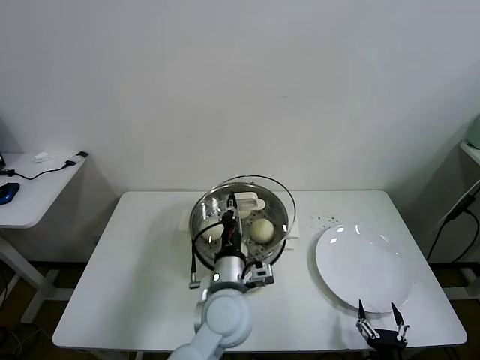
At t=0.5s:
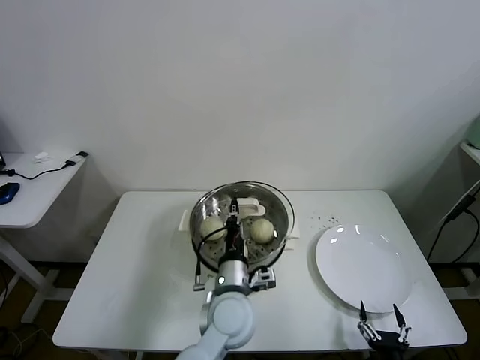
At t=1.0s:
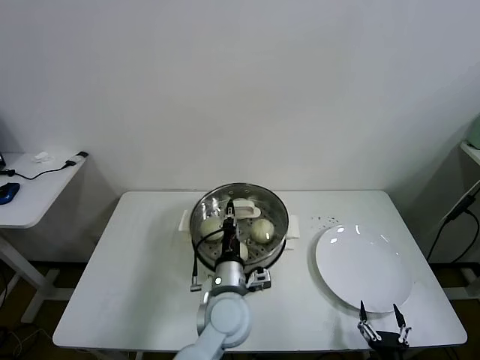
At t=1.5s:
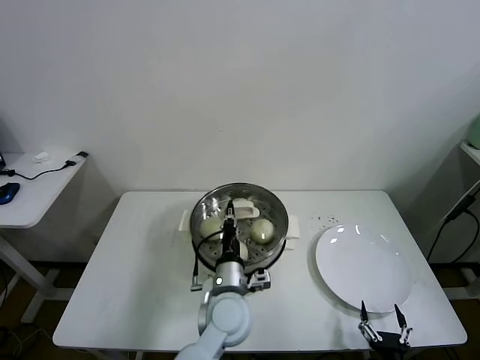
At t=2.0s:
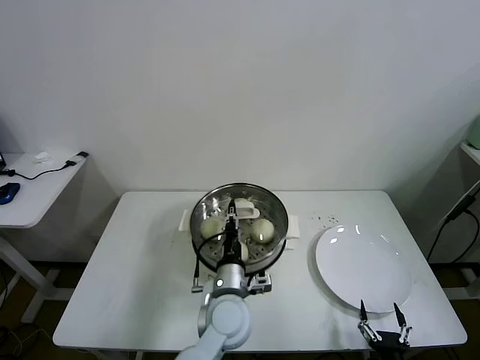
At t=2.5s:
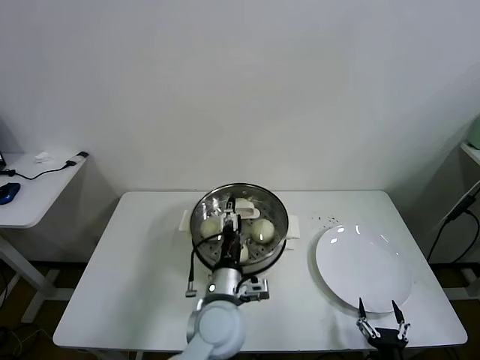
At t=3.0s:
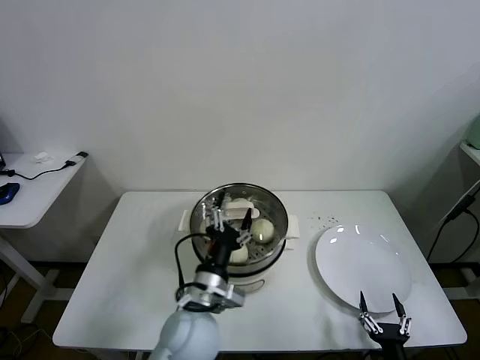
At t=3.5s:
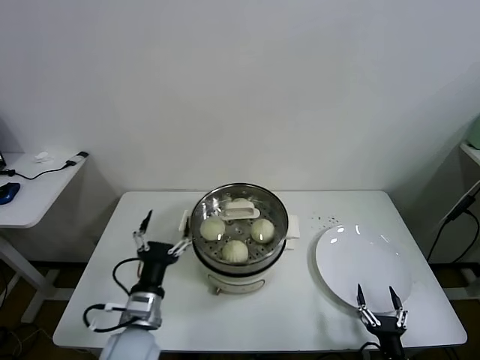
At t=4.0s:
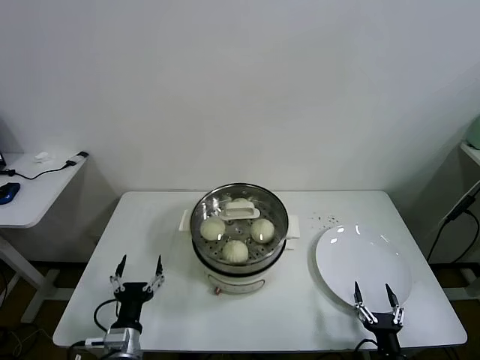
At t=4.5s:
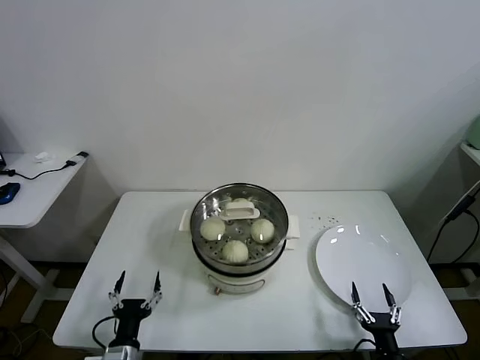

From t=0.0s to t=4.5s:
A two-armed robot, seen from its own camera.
Task of the whole recording: take steamed baozi put them in steamer.
Step, from t=0.0s to t=2.0s: Place the pot lid on the steamer with left gripper.
From t=0.0s to t=2.0s: The left gripper shifts by approximately 5 cm.
From t=2.0s to t=4.5s: The left gripper goes some 30 cm to the left, backward and downward, and opens.

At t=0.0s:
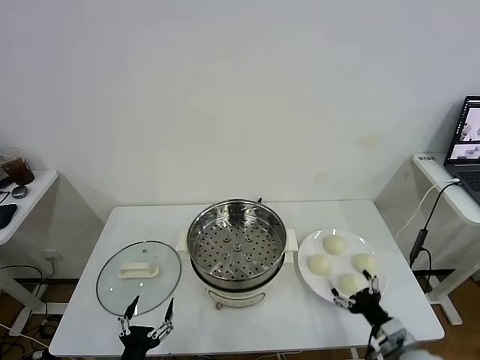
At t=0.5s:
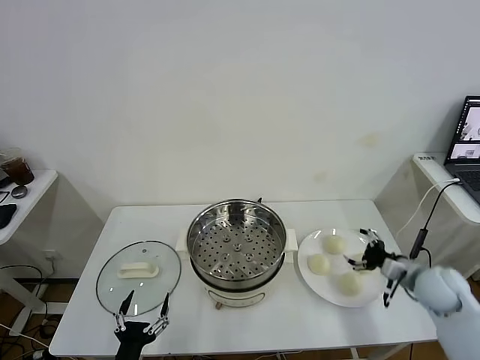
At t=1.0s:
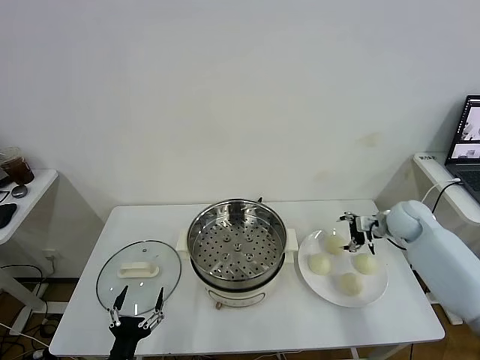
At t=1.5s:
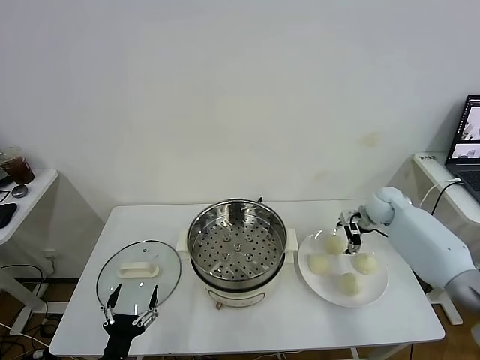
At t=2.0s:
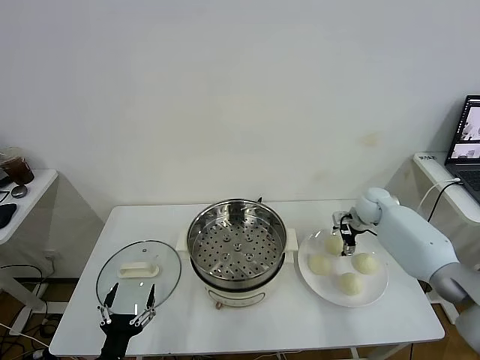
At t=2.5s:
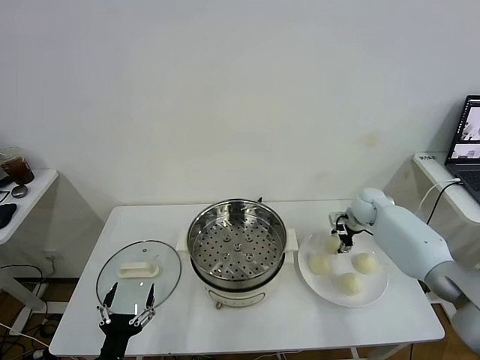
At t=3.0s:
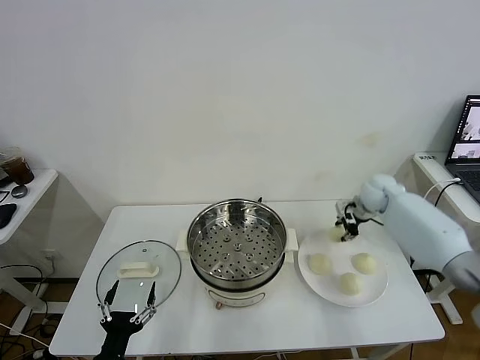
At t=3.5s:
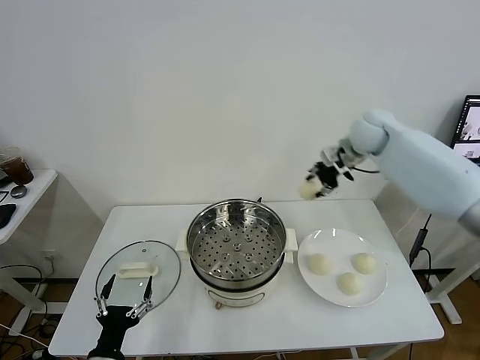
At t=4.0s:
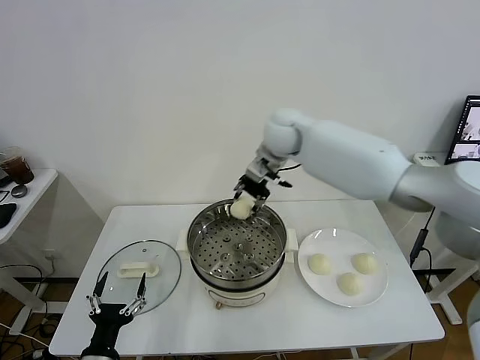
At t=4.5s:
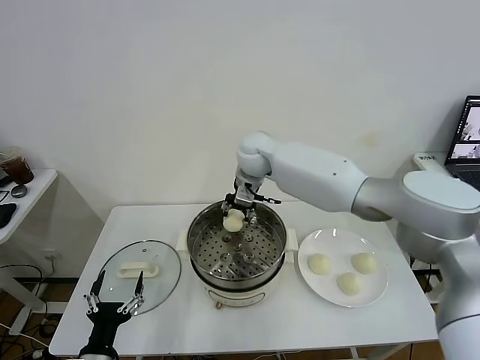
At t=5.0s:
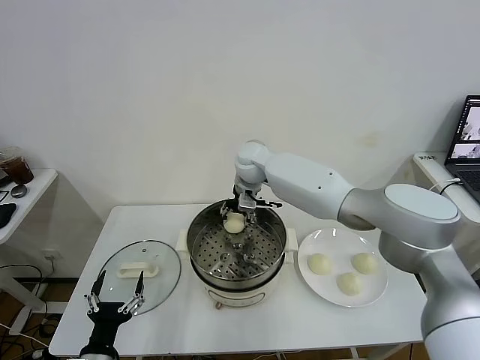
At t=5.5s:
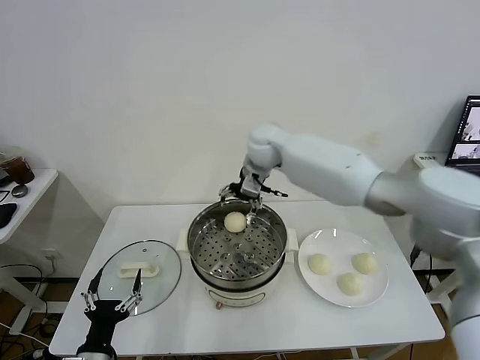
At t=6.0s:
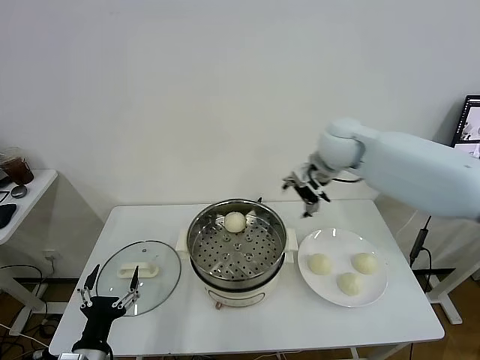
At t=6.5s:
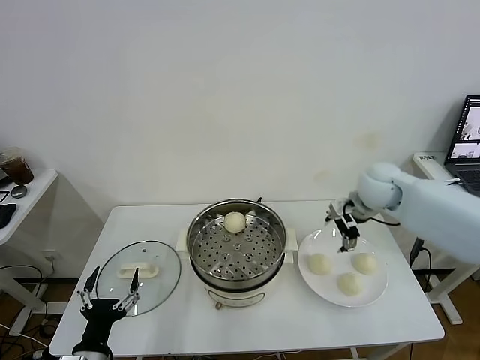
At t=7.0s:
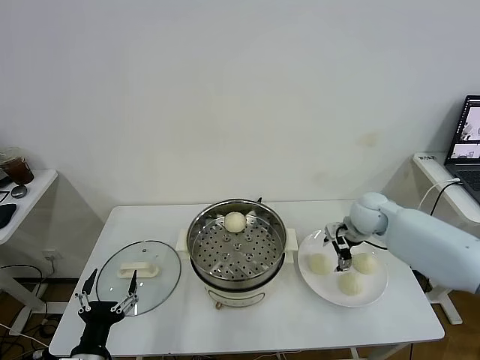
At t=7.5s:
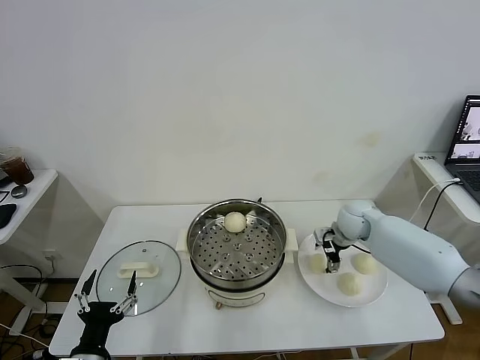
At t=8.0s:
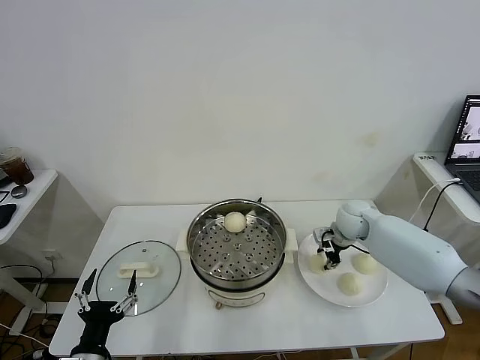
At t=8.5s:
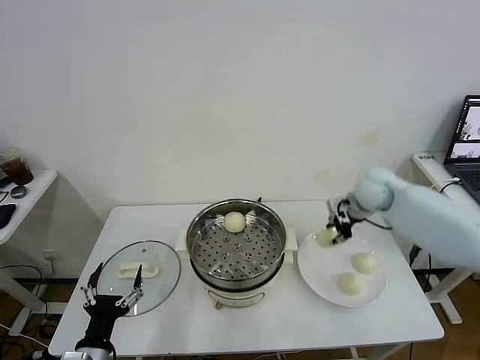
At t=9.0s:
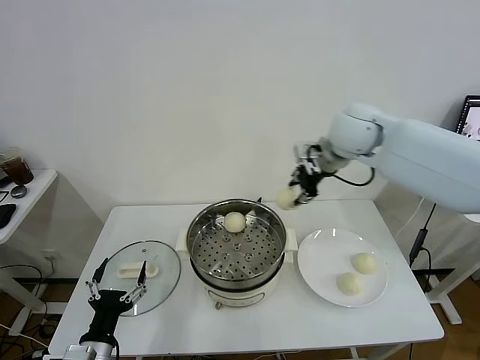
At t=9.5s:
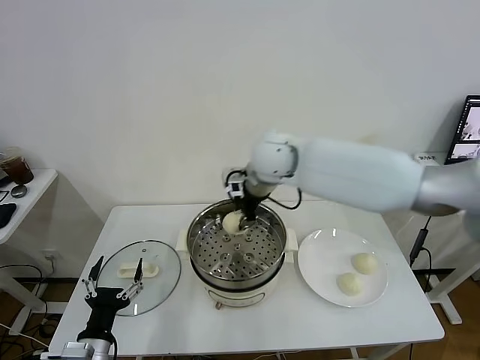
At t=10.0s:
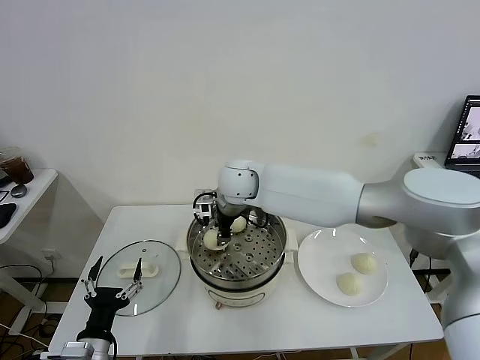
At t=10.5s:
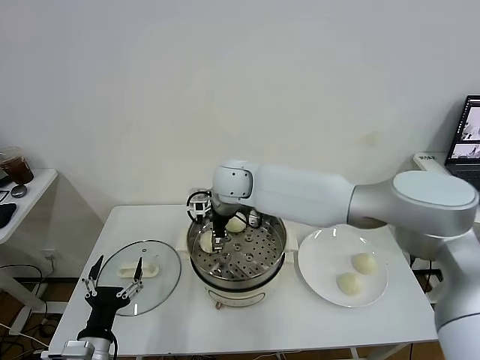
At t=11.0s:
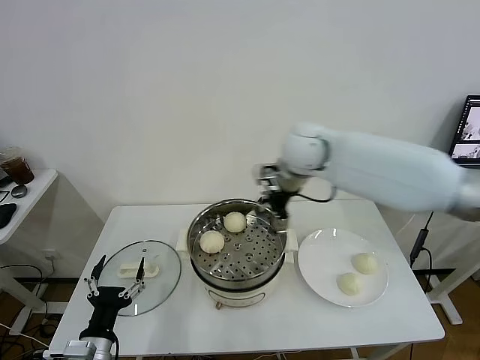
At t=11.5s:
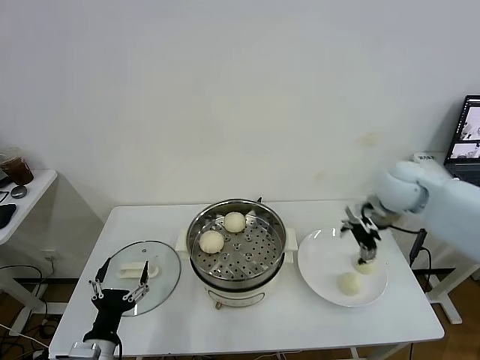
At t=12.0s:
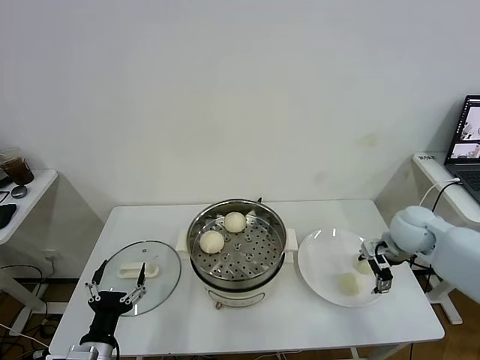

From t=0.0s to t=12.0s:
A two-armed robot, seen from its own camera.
Task of the whole recording: take steamed baozi put them in steamer.
Step, from t=0.0s to t=2.5s: Grasp the baozi in the plate with right gripper.
Step, from t=3.0s to t=5.0s: Place the baozi on the steamer with right gripper.
Step, from t=5.5s to t=8.0s: Grasp the baozi in the plate with right gripper.
Step, from t=8.5s to t=10.5s: Place the baozi on the steamer with right gripper.
From t=2.0s to t=4.0s: The right gripper travels to the left and upward by roughly 35 cm, and closes its fingers.
From t=4.0s to t=6.0s: The right gripper shifts roughly 15 cm to the right, and opens up.
From t=6.0s to t=8.0s: The right gripper is displaced downward by roughly 20 cm, and closes up.
From t=8.0s to t=10.0s: The right gripper is displaced to the left and upward by about 35 cm.
From t=10.0s to t=12.0s: The right gripper moves to the right, approximately 40 cm, and opens.

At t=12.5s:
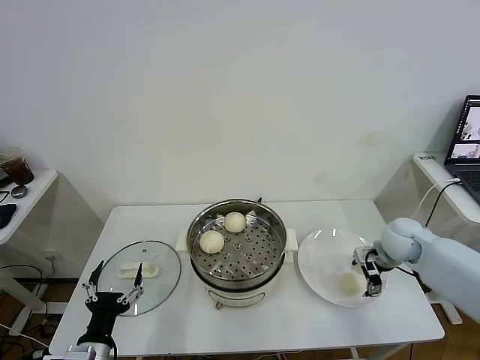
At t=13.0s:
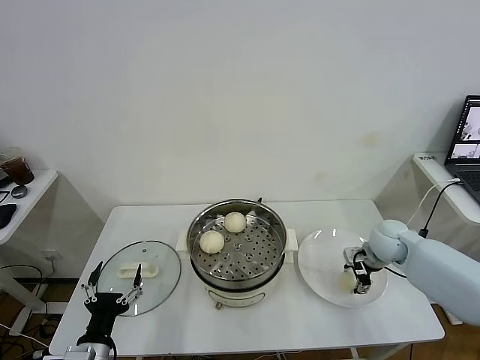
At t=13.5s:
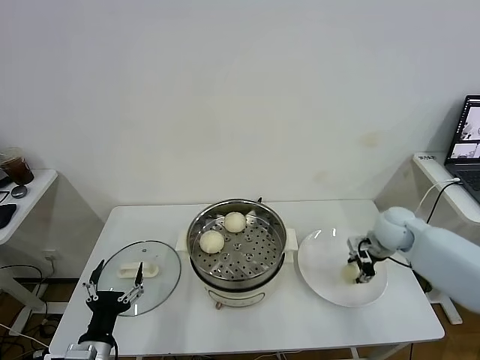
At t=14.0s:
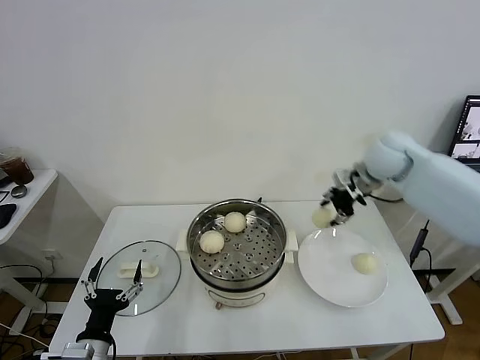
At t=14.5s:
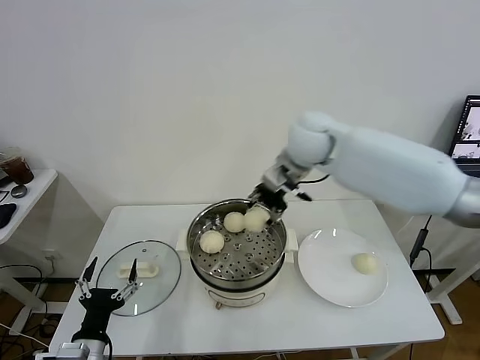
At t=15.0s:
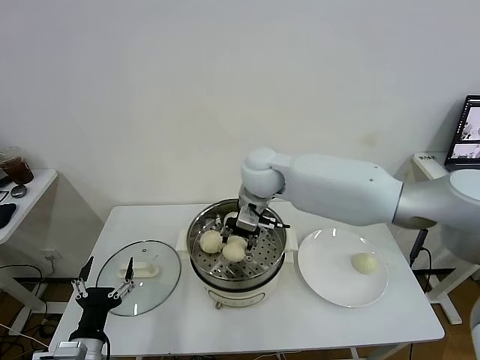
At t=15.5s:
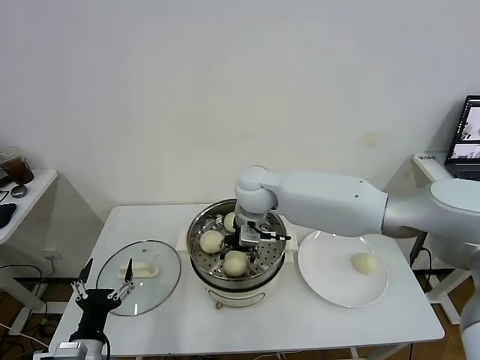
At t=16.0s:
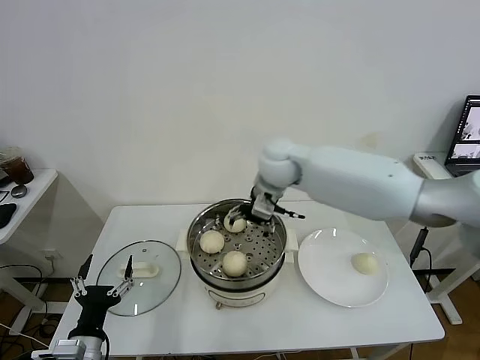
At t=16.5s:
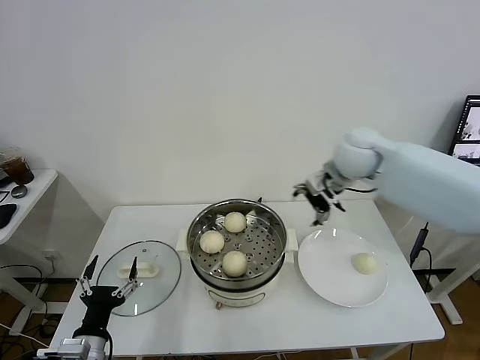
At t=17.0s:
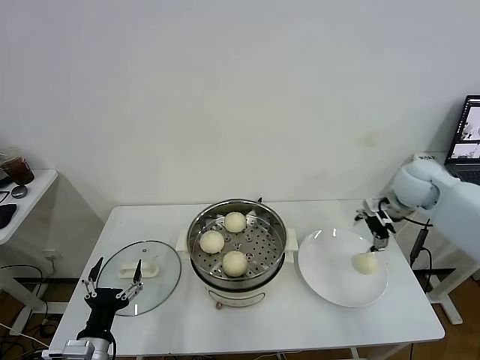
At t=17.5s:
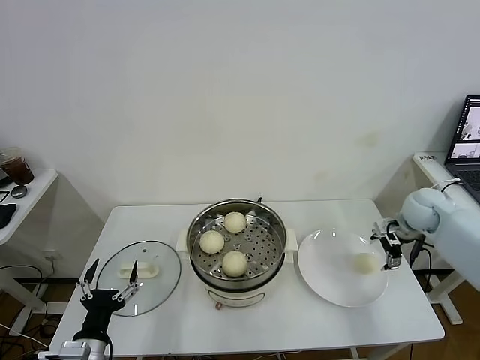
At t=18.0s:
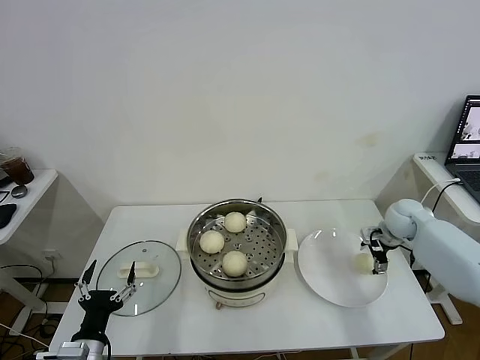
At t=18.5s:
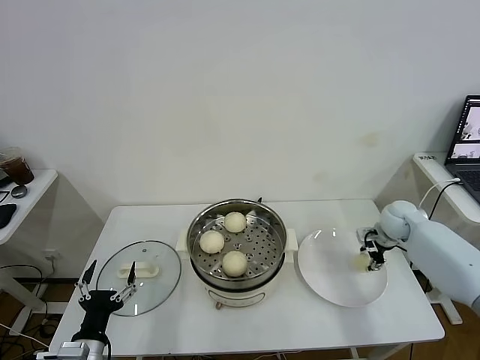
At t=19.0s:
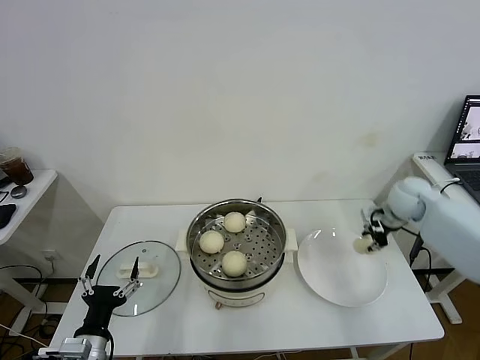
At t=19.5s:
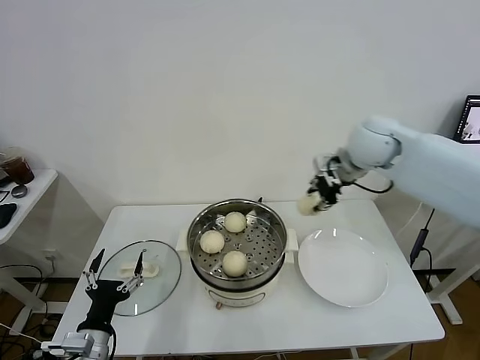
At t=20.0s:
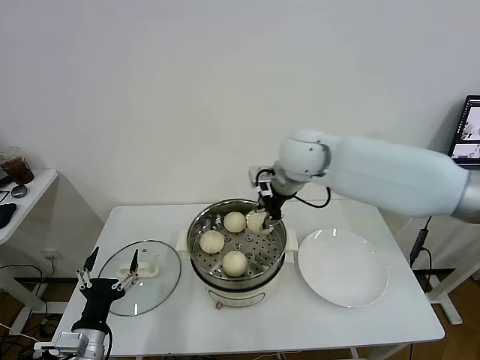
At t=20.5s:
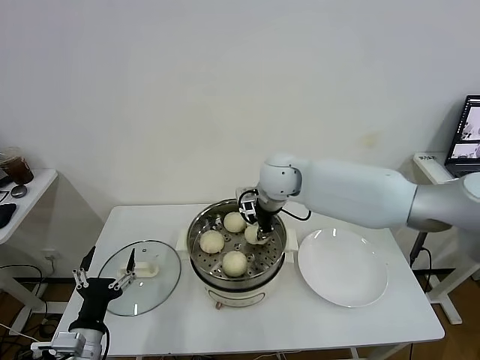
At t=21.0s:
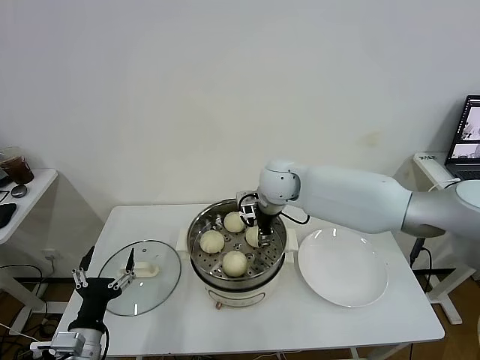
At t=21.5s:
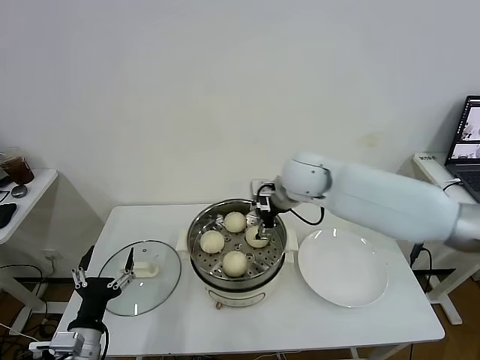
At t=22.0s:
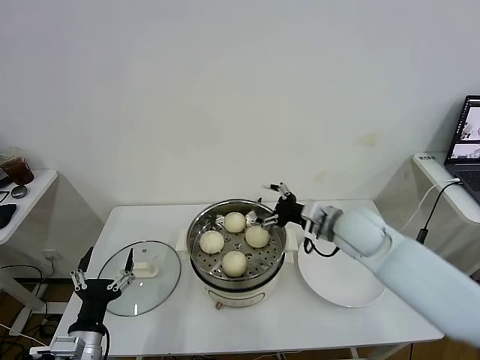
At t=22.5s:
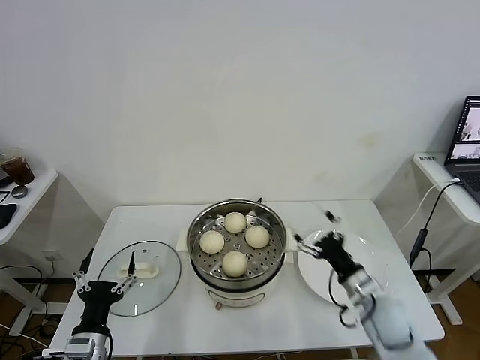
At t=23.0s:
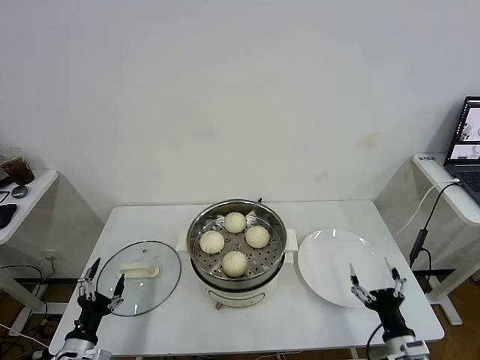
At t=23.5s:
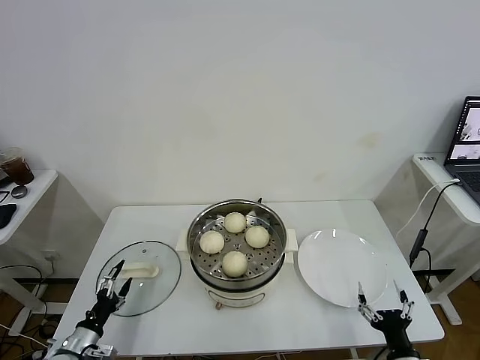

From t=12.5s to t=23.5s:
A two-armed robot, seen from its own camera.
Task of the whole recording: take steamed baozi put them in steamer.
Step, from t=13.5s to t=15.5s: Place the baozi on the steamer with right gripper.
Step, from t=16.0s to t=18.5s: Grasp the baozi in the plate with right gripper.
Step, from t=19.0s to t=21.0s: Place the baozi on the steamer with right gripper.
From t=12.5s to t=14.5s: The right gripper goes approximately 35 cm to the left and upward, and closes its fingers.
From t=14.5s to t=16.0s: The right gripper is displaced downward by some 5 cm, and opens.
From t=16.0s to t=18.0s: The right gripper moves to the right and downward, approximately 40 cm.
From t=18.0s to t=20.0s: The right gripper is displaced to the left and upward by approximately 35 cm, and closes up.
From t=20.0s to t=21.5s: The right gripper opens its fingers.
From t=21.5s to t=23.5s: The left gripper travels downward and to the left by roughly 15 cm, while the right gripper shifts roughly 50 cm backward, downward and to the right.
